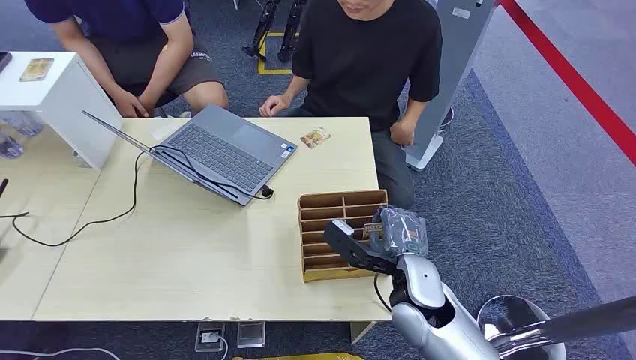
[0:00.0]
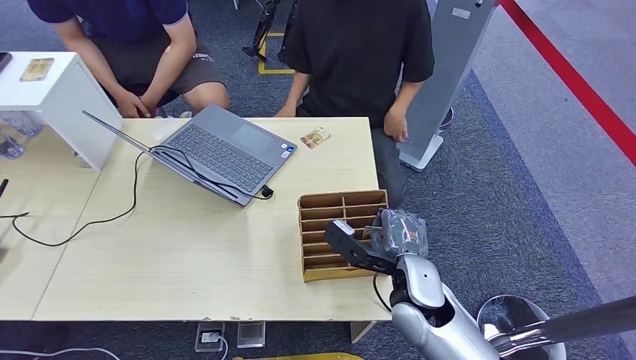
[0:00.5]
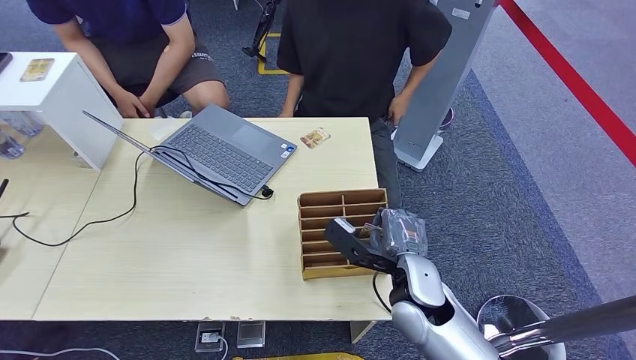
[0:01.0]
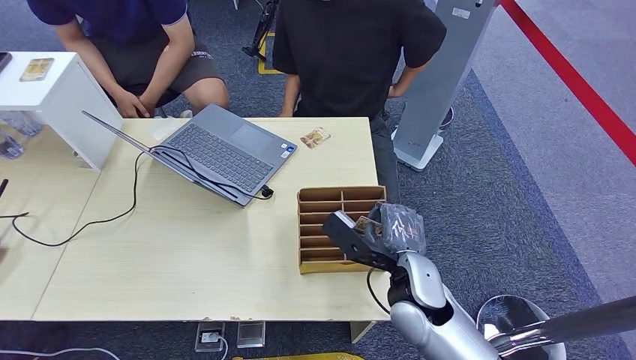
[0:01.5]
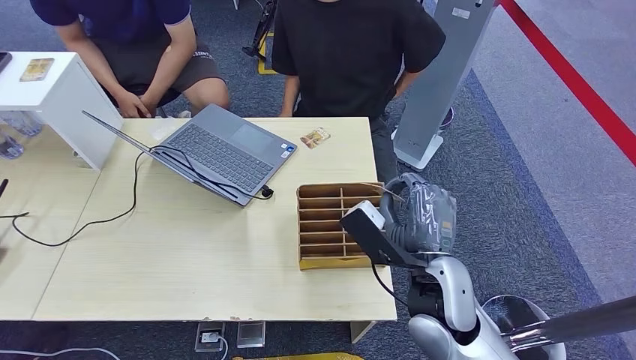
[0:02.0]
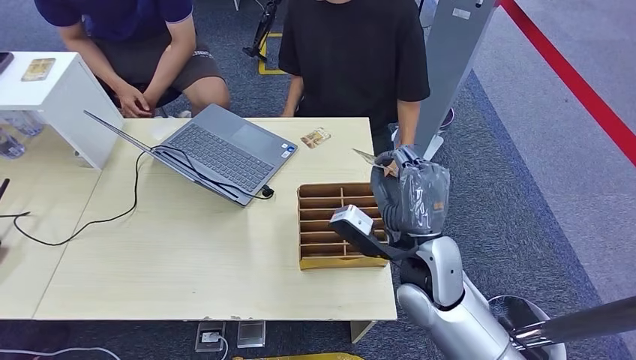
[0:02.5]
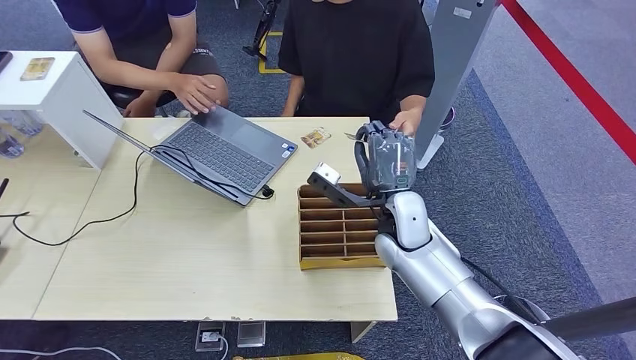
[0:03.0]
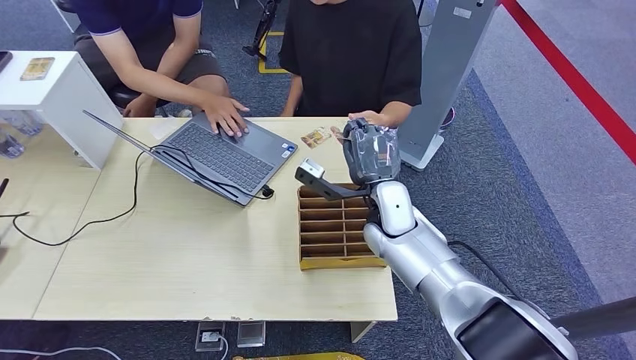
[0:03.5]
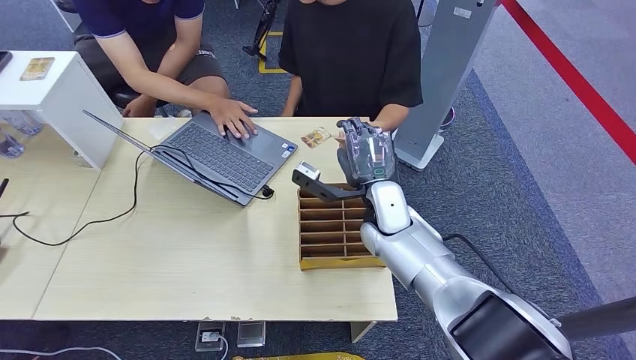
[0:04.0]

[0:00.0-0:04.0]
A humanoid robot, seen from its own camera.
Step, 0:00.0 to 0:01.5: Pick up the room card from the card holder.
Step, 0:02.5 to 0:04.0: Hand the room card to the target.
0:02.0 to 0:04.0: The right hand shifts about 15 cm forward.
